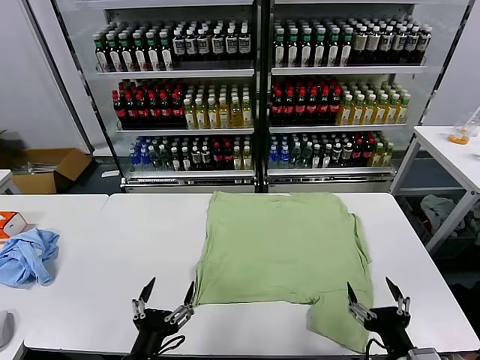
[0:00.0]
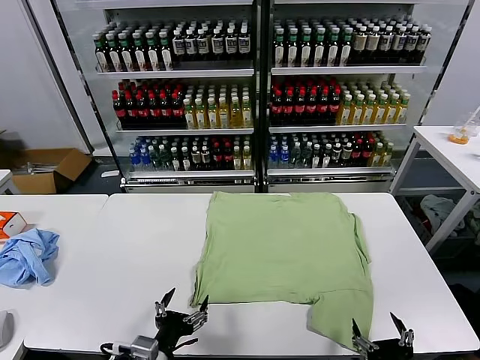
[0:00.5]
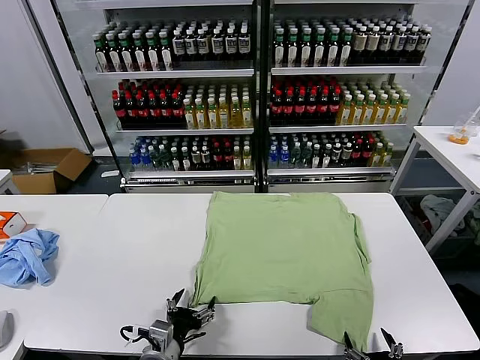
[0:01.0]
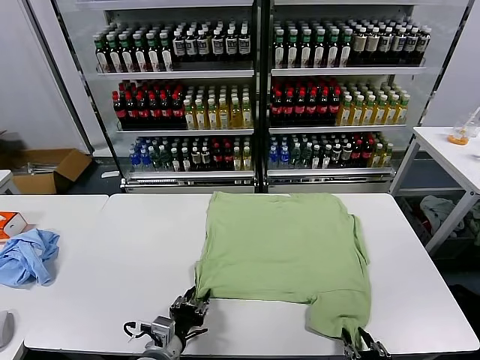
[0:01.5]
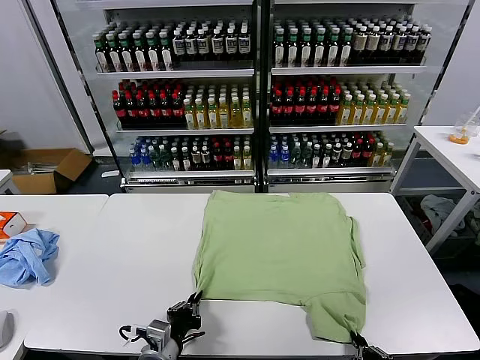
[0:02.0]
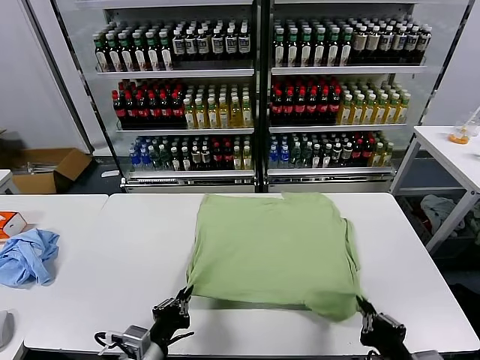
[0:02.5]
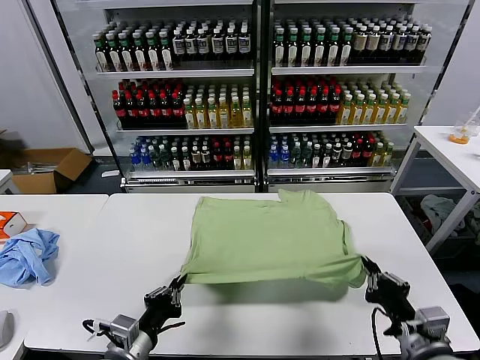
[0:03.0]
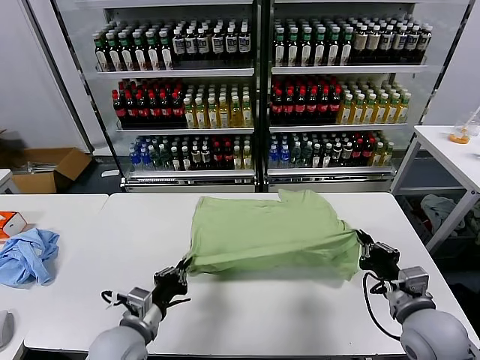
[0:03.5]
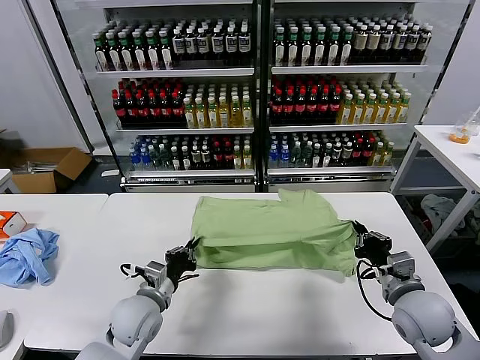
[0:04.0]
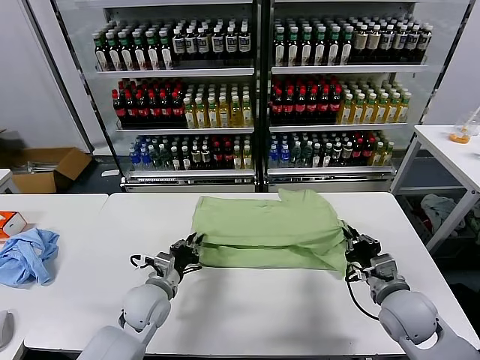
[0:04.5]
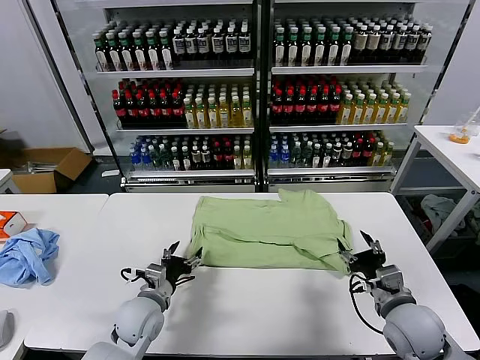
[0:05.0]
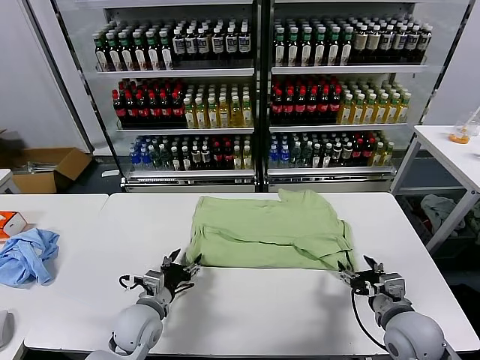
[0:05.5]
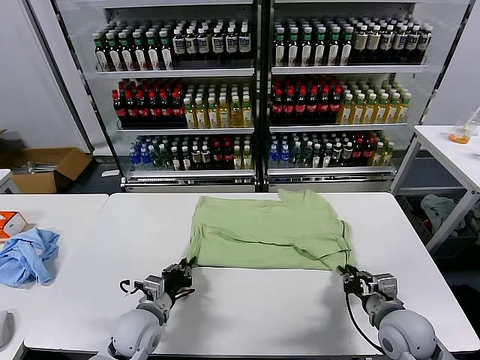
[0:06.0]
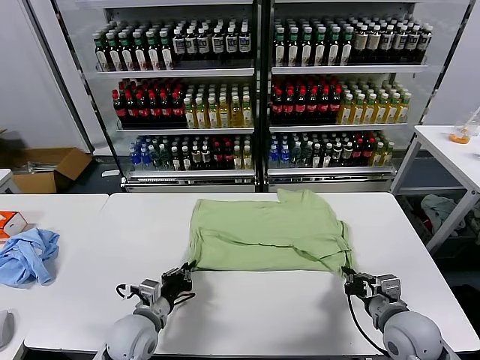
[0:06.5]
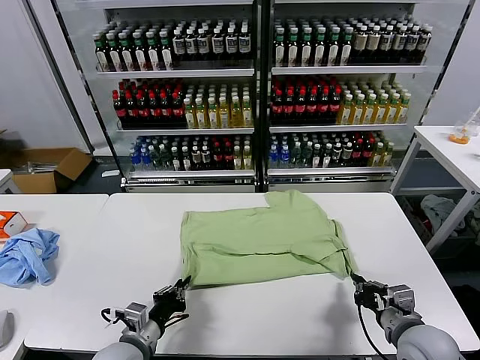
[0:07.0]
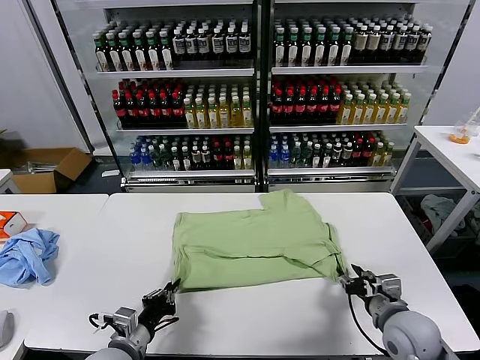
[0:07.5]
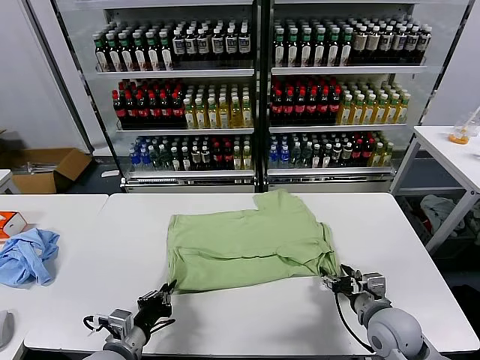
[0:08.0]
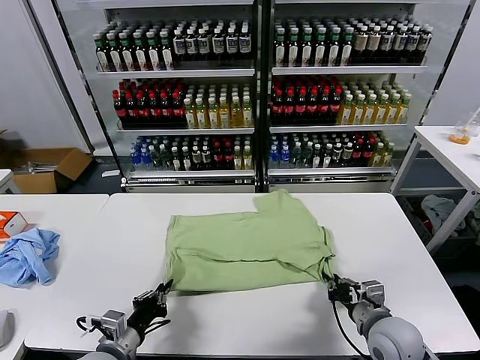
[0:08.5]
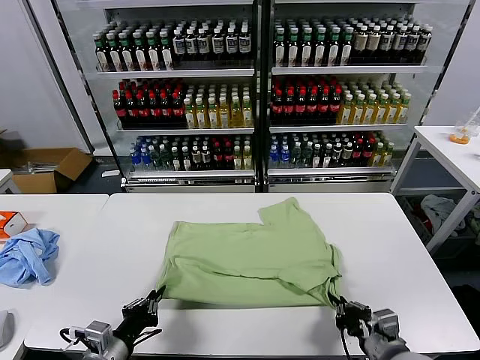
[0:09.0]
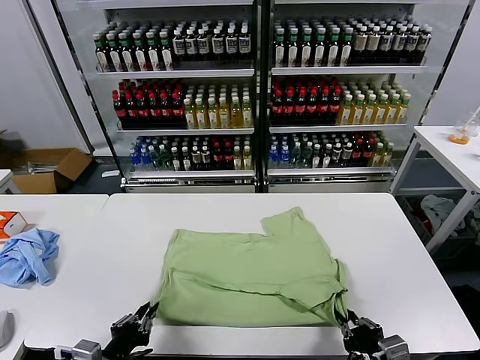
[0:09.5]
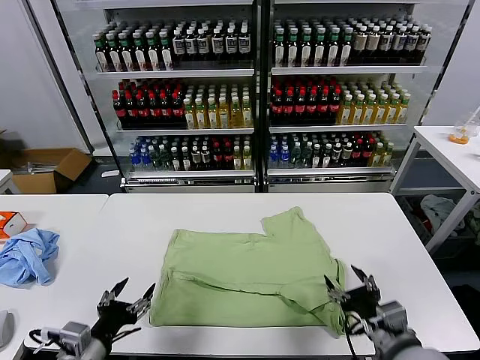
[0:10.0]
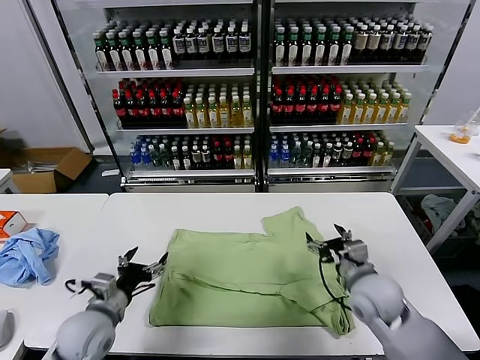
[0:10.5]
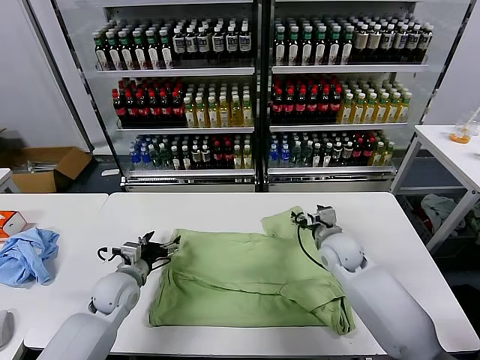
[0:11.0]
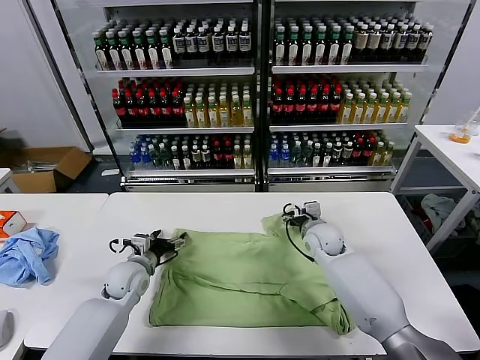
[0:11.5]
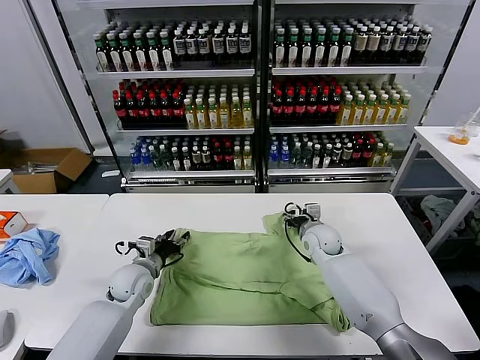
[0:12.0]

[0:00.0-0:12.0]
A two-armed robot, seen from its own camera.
Task of the whole recording: fold and organize the clothes.
Step, 0:00.0 to 0:02.0: use both grippers simultaneously to clamp the lower edge of the clothing fabric.
Step, 0:02.5 to 0:04.5: use both grippers to drag the lower edge of the fabric forward and fold it over the upper edge.
Step, 0:05.0 to 0:09.5: Drag the clothes downward with both gripper.
0:02.0 to 0:04.0: The left gripper goes some 10 cm forward. Meanwhile the right gripper moves forward, some 20 cm.
0:04.0 to 0:06.0: The right gripper changes place by about 5 cm, and opens, then closes again, while the left gripper opens, then closes once more.
0:06.0 to 0:08.0: The left gripper heads backward, covering roughly 10 cm; the right gripper opens its fingers.
0:08.0 to 0:10.0: The left gripper is displaced upward by roughly 5 cm, and opens up. The right gripper heads backward and upward, covering some 10 cm, and opens its fingers.
0:10.0 to 0:12.0: Both grippers move forward, about 30 cm. The right gripper closes.

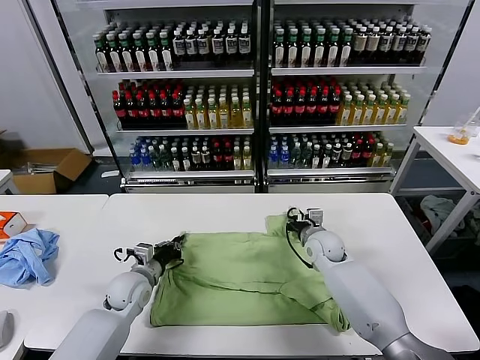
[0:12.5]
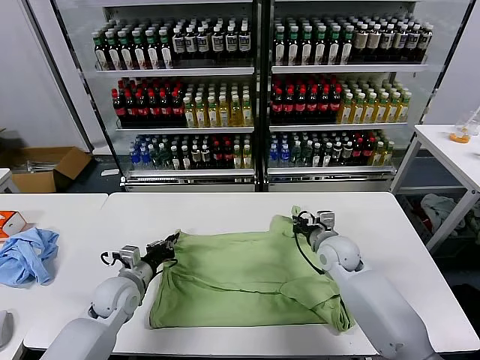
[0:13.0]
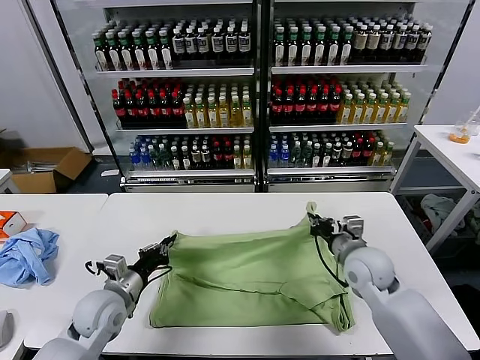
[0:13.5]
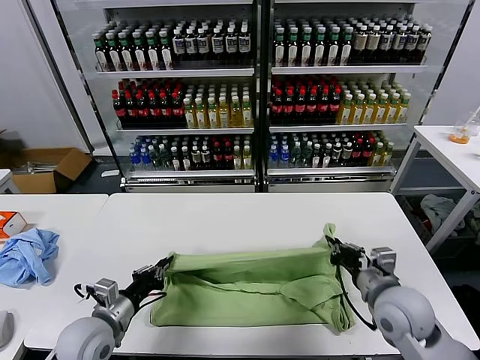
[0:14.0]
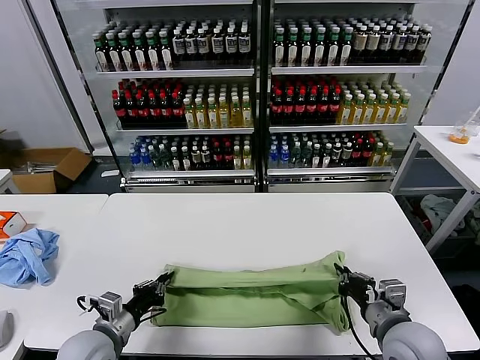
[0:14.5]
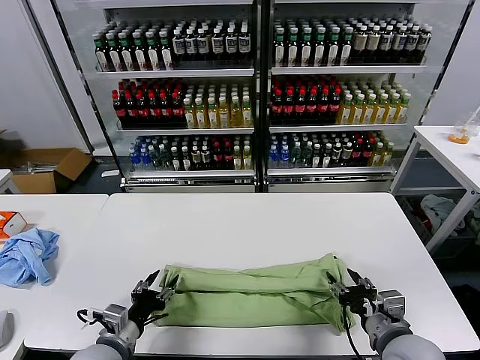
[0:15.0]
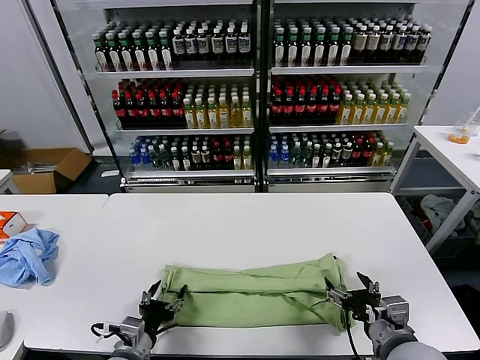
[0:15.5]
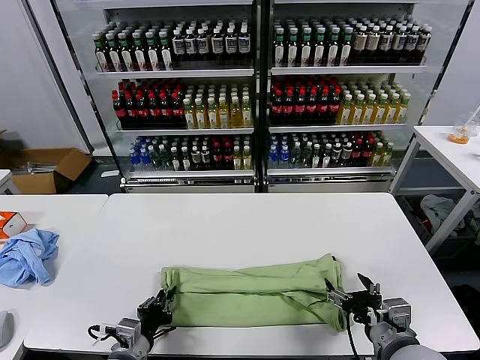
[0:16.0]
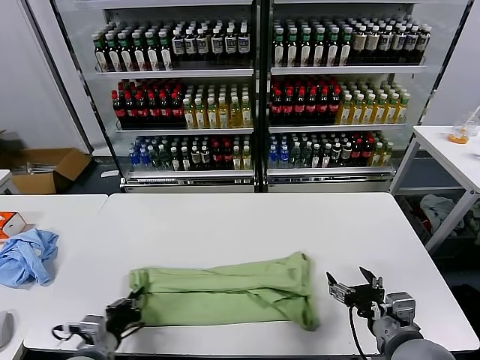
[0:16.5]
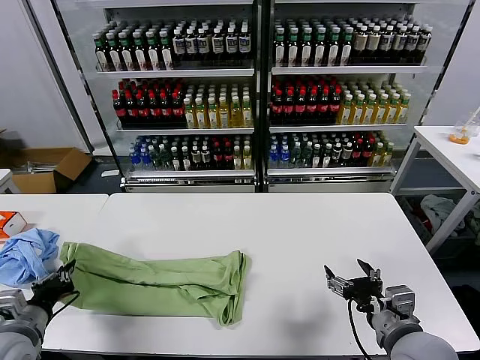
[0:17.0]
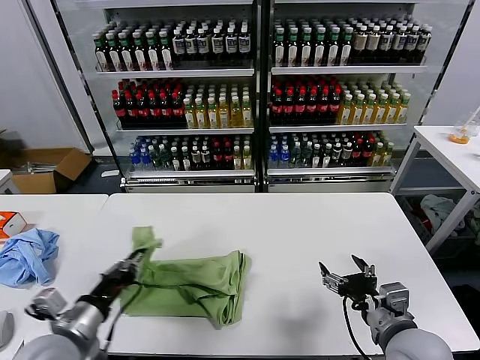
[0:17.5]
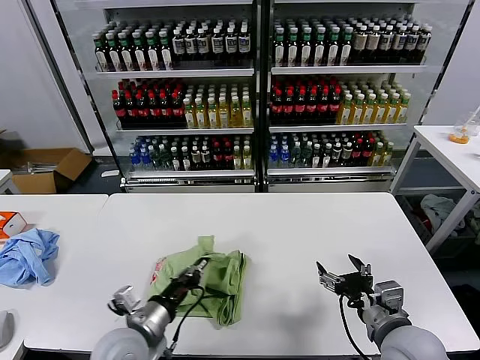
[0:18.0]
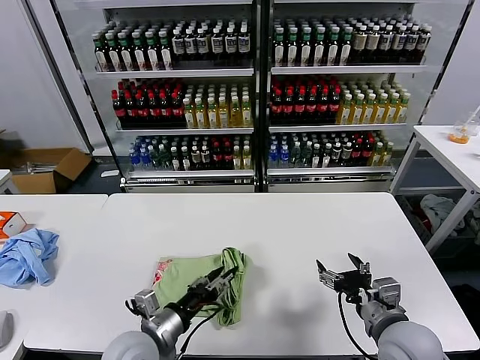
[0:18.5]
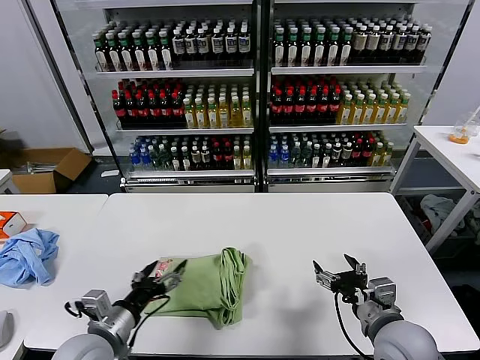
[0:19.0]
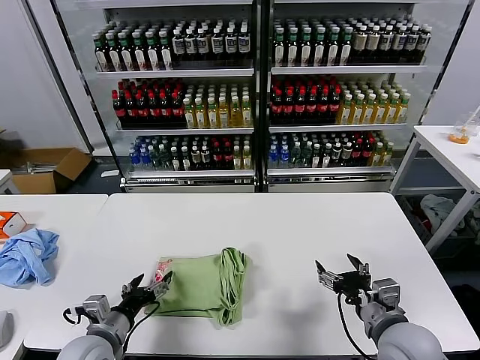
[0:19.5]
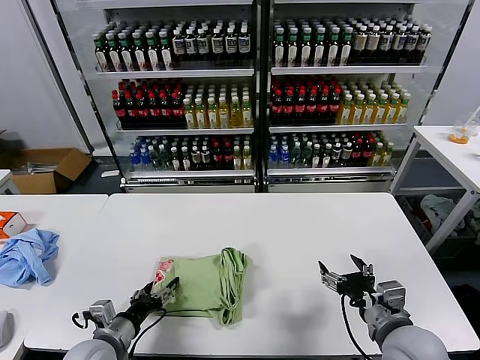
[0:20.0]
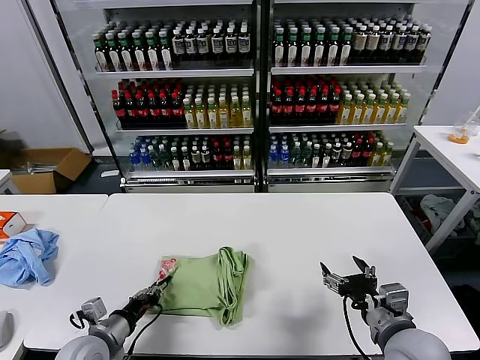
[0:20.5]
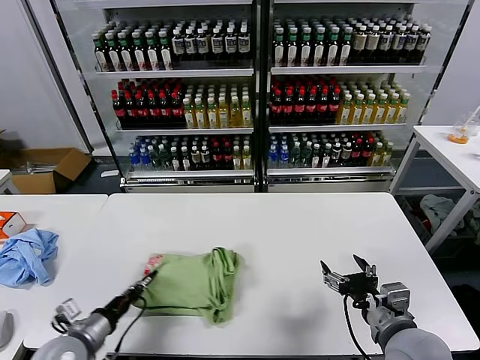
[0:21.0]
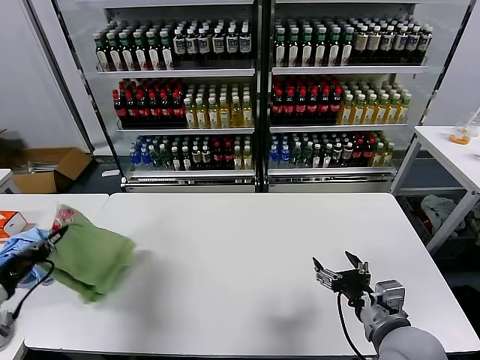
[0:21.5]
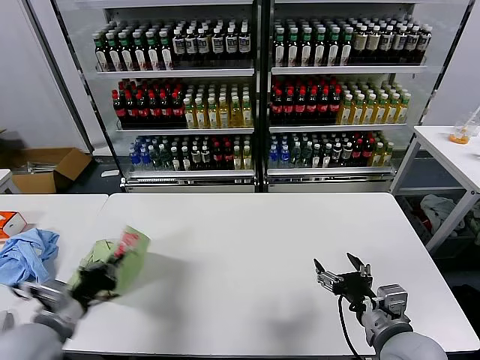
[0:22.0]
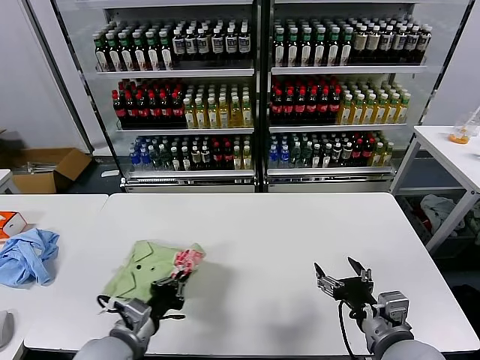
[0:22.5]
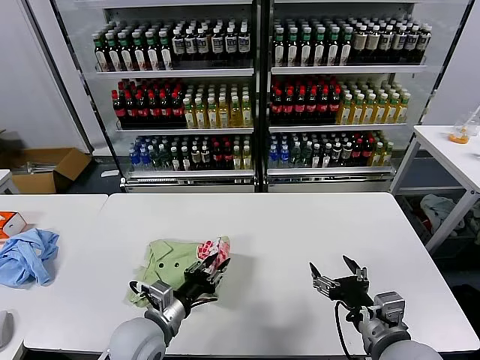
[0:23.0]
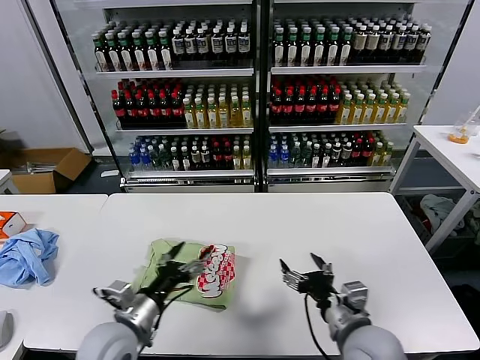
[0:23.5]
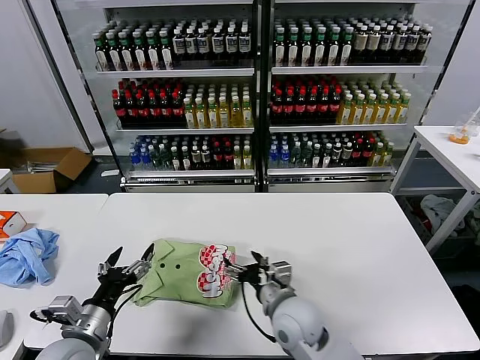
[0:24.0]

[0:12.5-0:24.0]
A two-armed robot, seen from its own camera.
Task of the whole recording: fold and organize the clothes.
Step, 0:13.0 to 0:15.0: use both grippers to drag the upper edge of the fabric backward and fold it over the lower edge.
Step, 0:16.5 to 0:18.5: use the left gripper to drag the left edge of the fabric to the left and folds it over the right edge.
Step, 0:19.0 to 0:23.0: Flip the folded clothes over with left gripper.
0:12.5 to 0:14.5: The left gripper heads backward, covering about 15 cm. The right gripper moves backward, about 25 cm.
0:14.5 to 0:16.5: The left gripper opens and closes again. The right gripper opens up.
0:16.5 to 0:18.5: The left gripper goes about 10 cm to the right and upward, and opens up.
0:18.5 to 0:20.0: The left gripper moves to the left, roughly 10 cm.
0:20.0 to 0:22.0: The left gripper travels upward and to the left by about 15 cm, and closes up.
0:22.0 to 0:24.0: The right gripper goes approximately 20 cm to the left, forward and downward, while the left gripper shifts about 5 cm to the right, and opens its fingers.

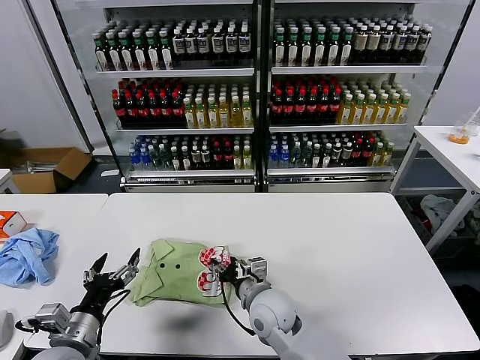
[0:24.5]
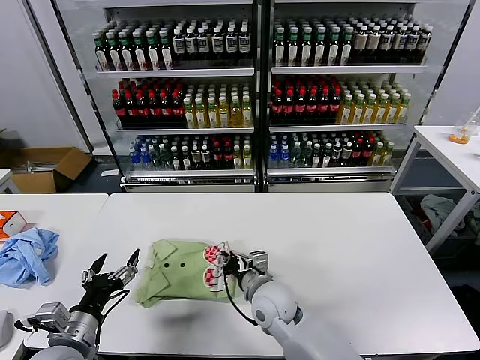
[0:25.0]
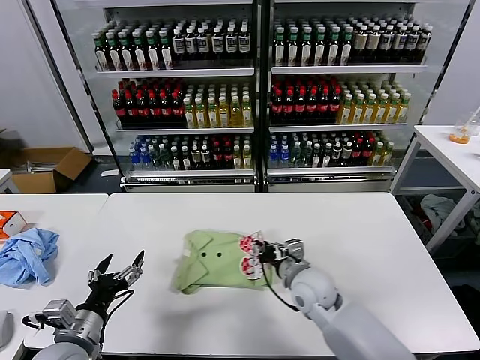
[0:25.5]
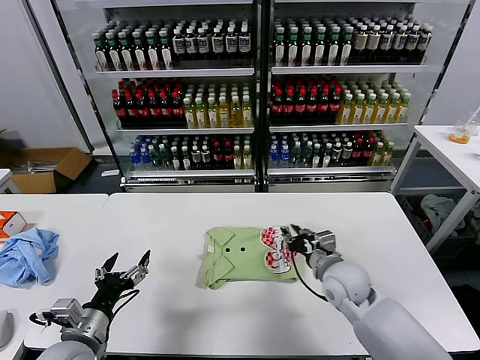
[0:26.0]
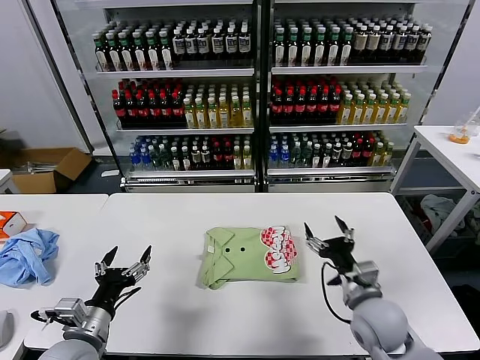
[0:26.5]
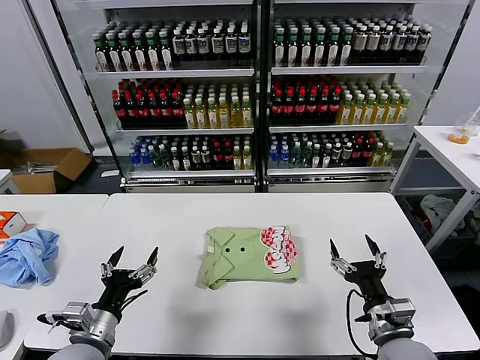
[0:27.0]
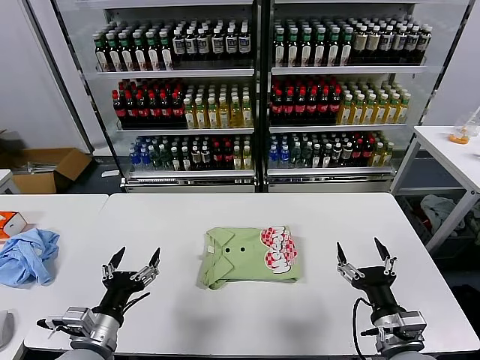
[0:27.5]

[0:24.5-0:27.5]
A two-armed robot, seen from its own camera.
Task of the whole recording: fold and organize the clothes.
Step, 0:24.5 to 0:26.0: Drag the clothes to the center of the table.
0:24.5 to 0:26.0: The right gripper travels to the right by approximately 15 cm.
0:26.0 to 0:27.5: The right gripper is displaced backward by approximately 20 cm, and opens up.
